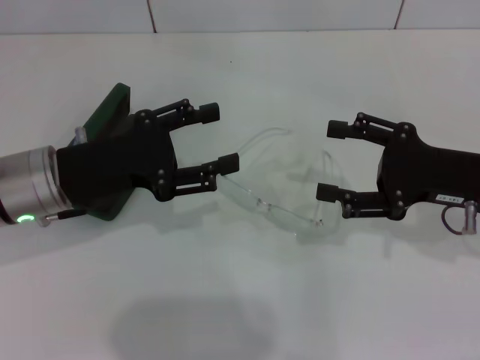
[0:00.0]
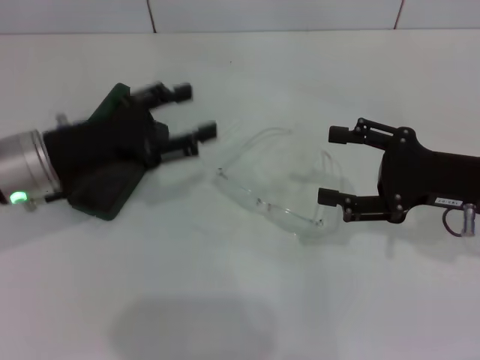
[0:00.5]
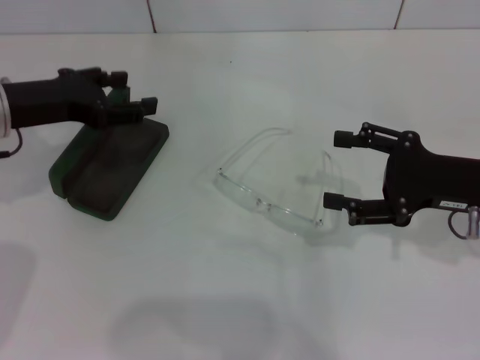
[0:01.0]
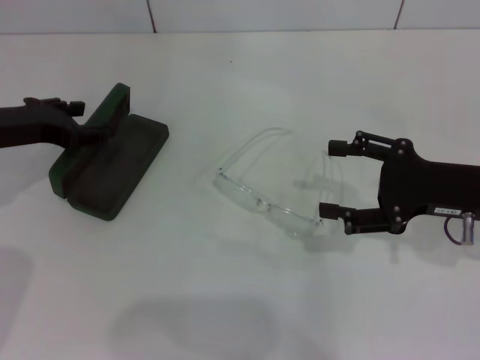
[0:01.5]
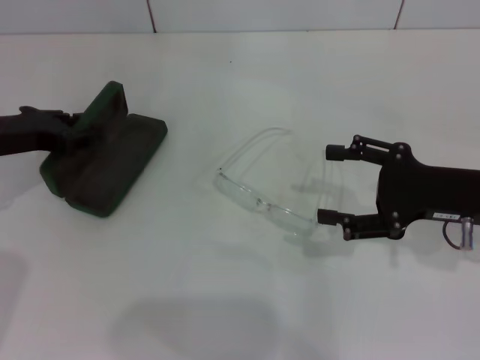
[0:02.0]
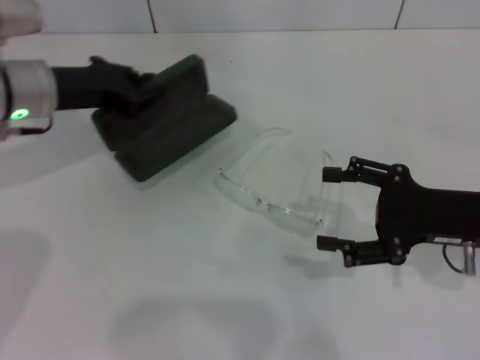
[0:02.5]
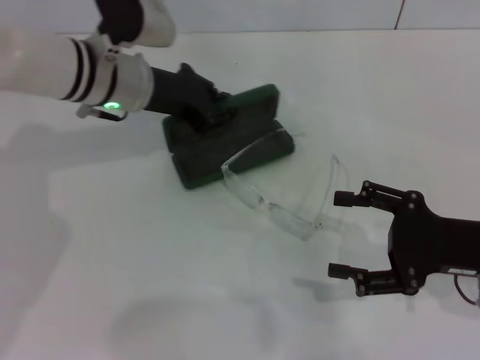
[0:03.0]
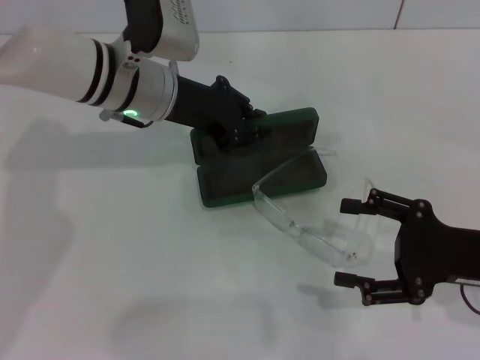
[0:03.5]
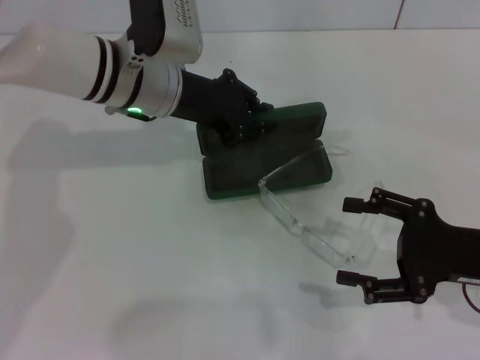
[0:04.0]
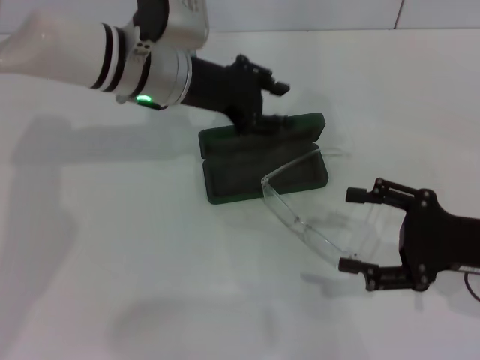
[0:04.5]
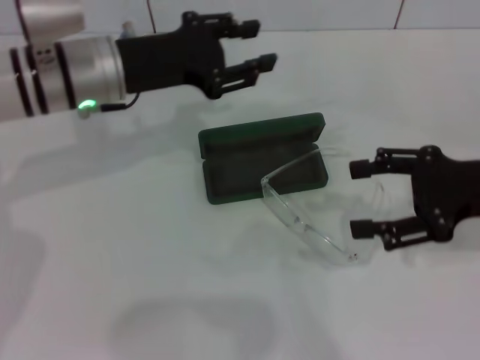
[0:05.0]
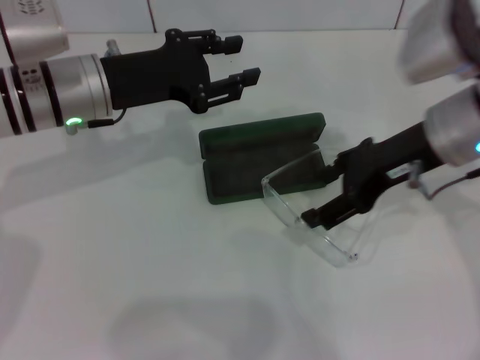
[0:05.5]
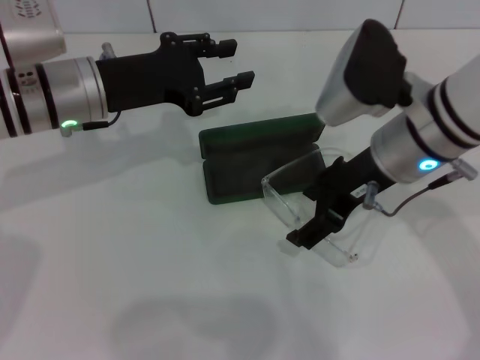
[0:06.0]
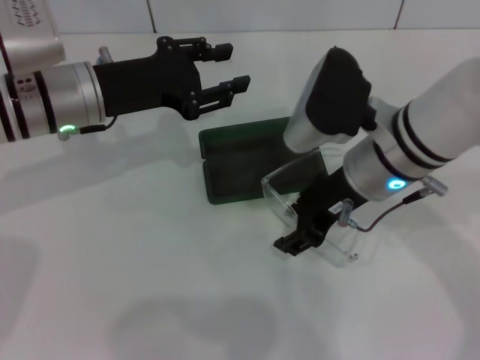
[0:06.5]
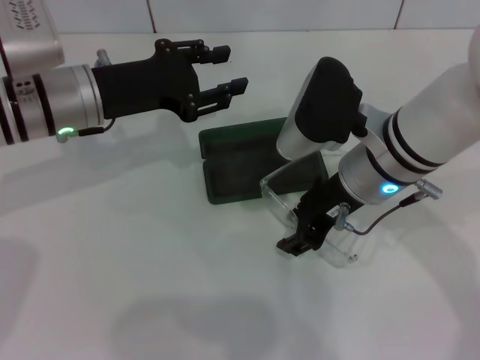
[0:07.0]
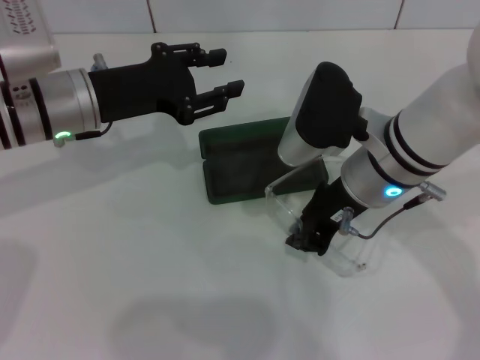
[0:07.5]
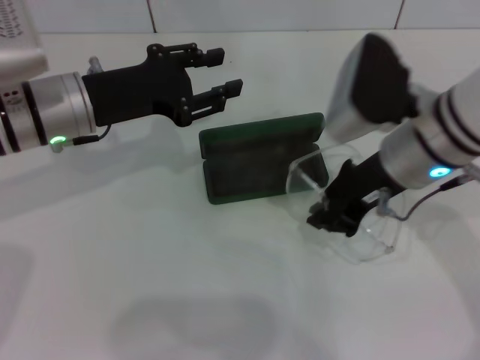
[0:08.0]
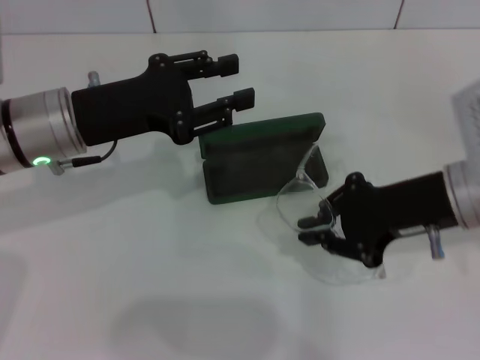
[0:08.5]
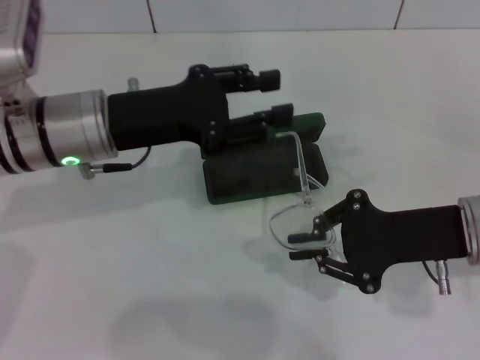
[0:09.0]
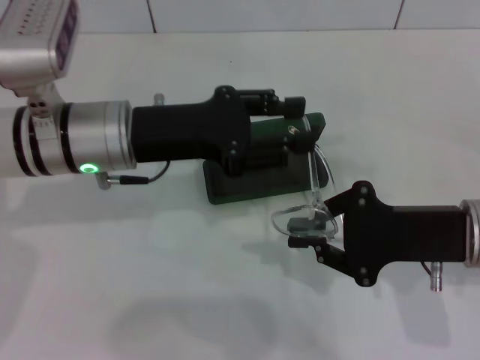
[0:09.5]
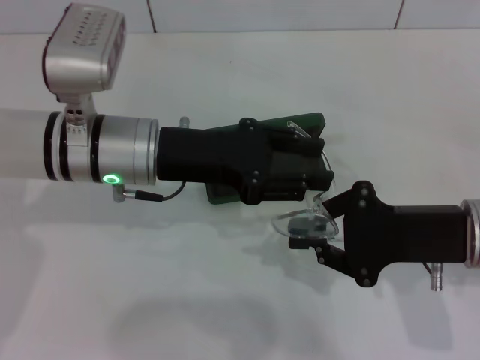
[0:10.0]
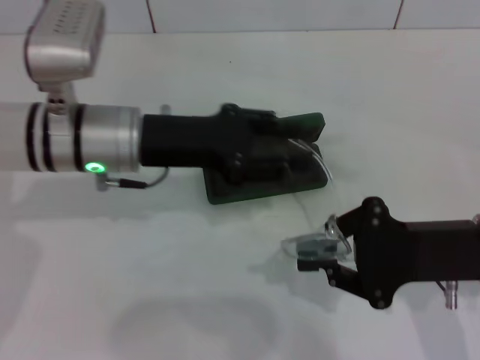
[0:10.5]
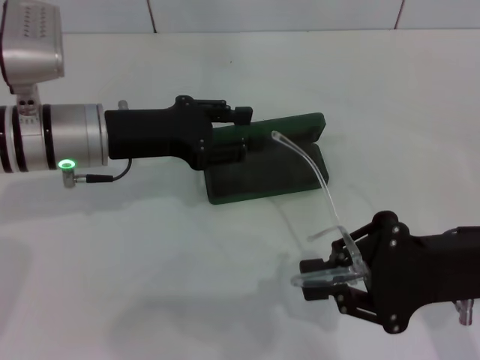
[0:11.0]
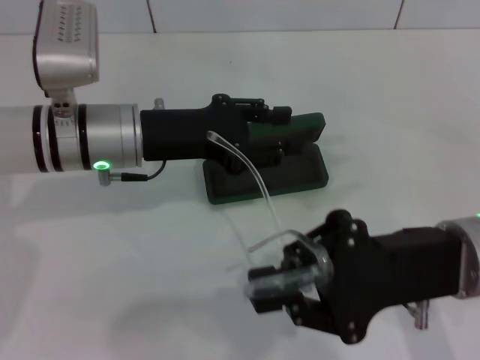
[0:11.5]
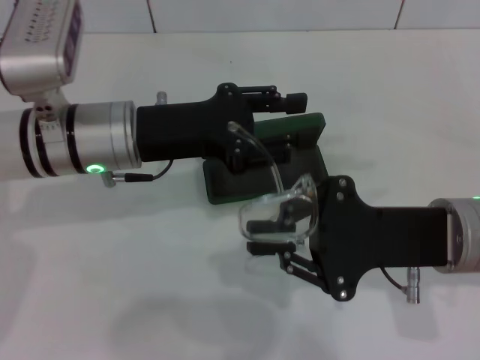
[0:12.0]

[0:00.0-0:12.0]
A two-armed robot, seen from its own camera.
Step, 0:00.0 to 0:02.0: Grab the glasses case with your left hand.
Step, 0:02.5 to 0:04.0: Place the glasses case in the center of the table with your left hand.
Step, 0:04.5 to 0:07.0: Grab the eyeglass frame with your right hand.
0:00.0 to 0:02.0: The left gripper moves to the left, about 10 cm, and closes up.
0:02.0 to 0:04.0: The left gripper travels to the right by some 20 cm, while the right gripper heads backward, covering about 5 cm.
0:04.0 to 0:06.0: The right gripper travels to the left, forward and upward by roughly 20 cm. The left gripper travels to the left by roughly 5 cm, and opens.
0:06.0 to 0:08.0: The right gripper closes.
0:08.0 to 0:10.0: The left gripper travels to the right by some 5 cm. Meanwhile the right gripper travels to the right, backward and downward by some 10 cm.

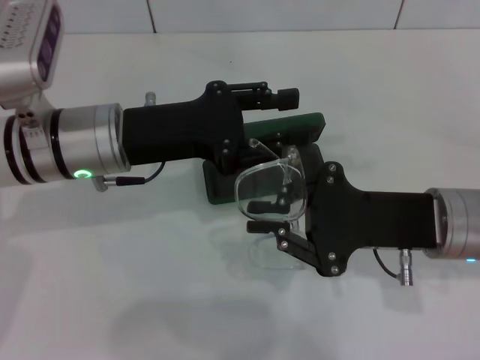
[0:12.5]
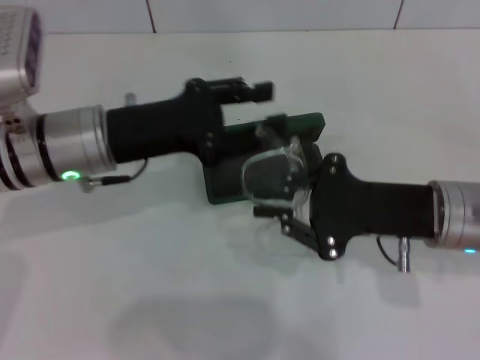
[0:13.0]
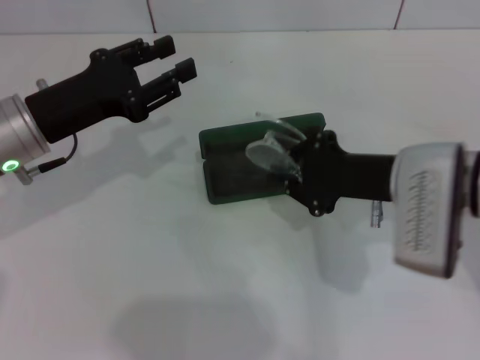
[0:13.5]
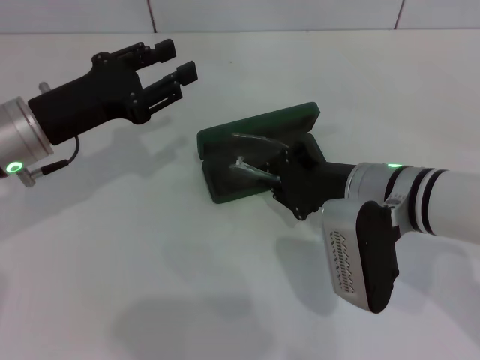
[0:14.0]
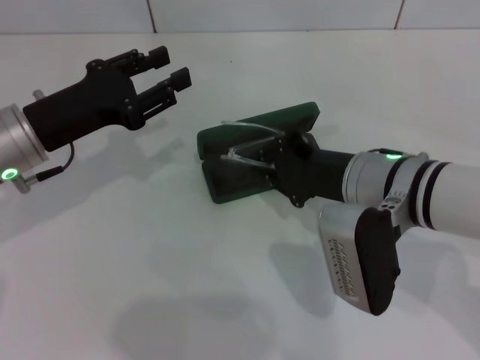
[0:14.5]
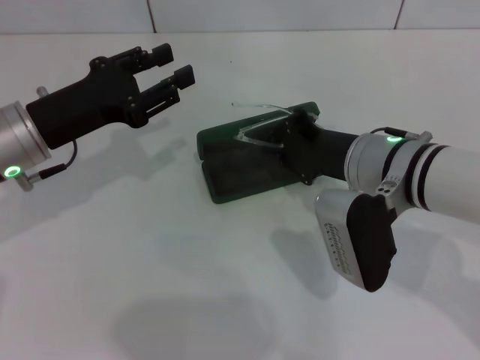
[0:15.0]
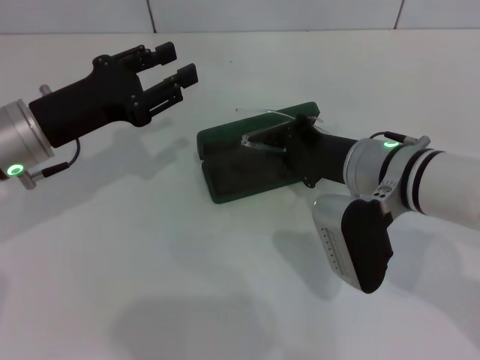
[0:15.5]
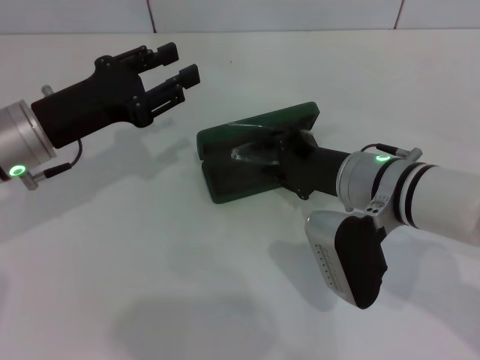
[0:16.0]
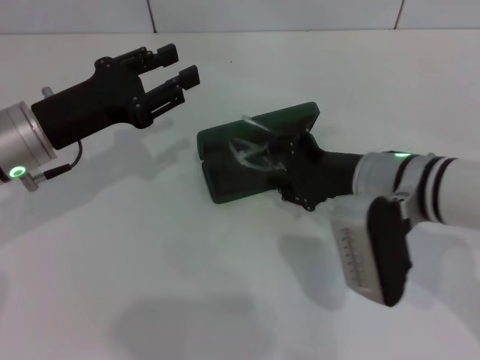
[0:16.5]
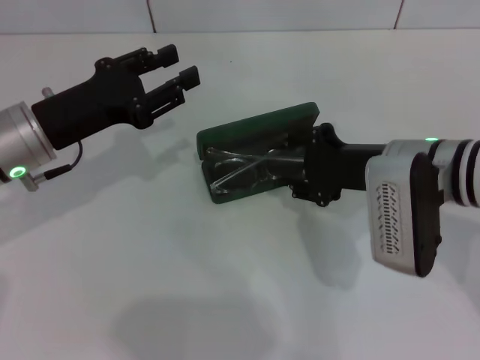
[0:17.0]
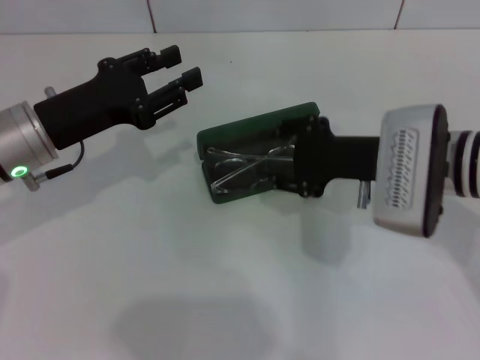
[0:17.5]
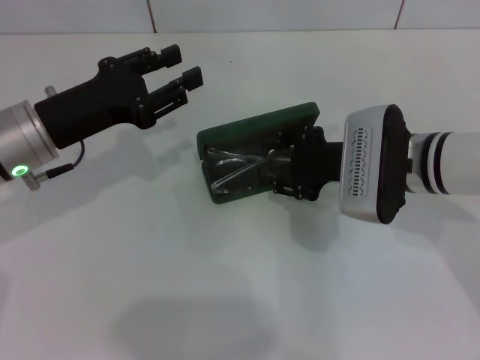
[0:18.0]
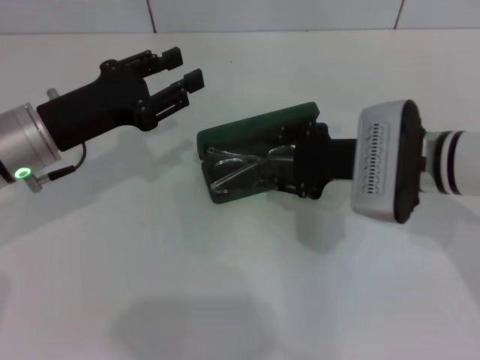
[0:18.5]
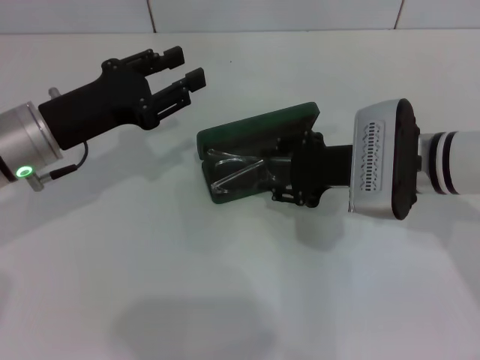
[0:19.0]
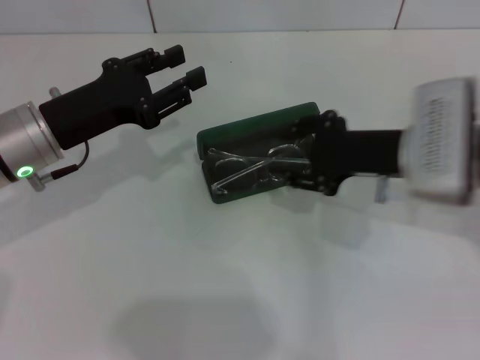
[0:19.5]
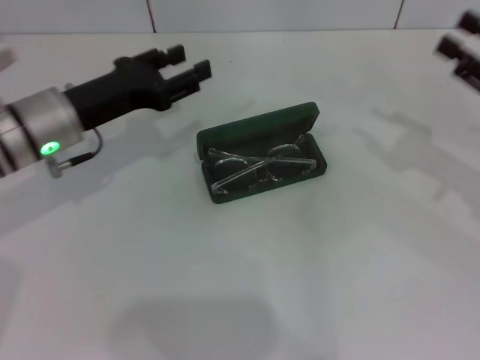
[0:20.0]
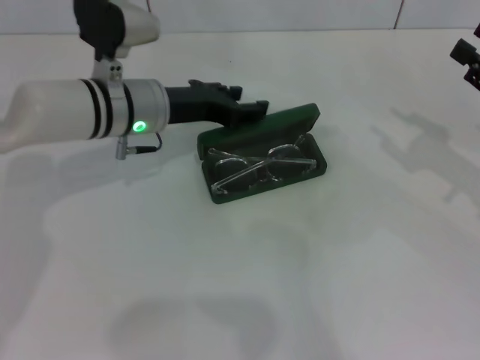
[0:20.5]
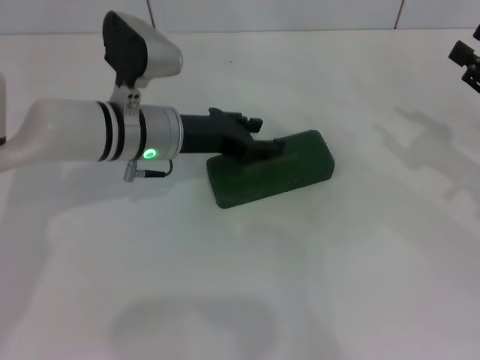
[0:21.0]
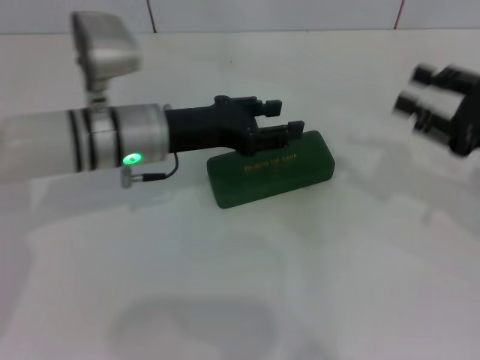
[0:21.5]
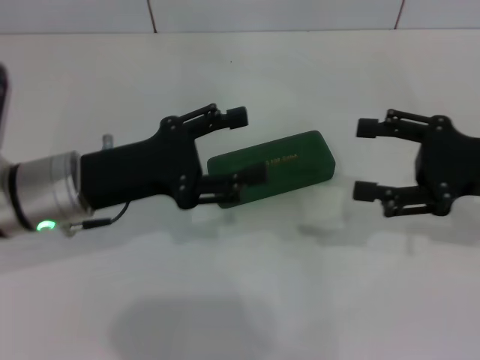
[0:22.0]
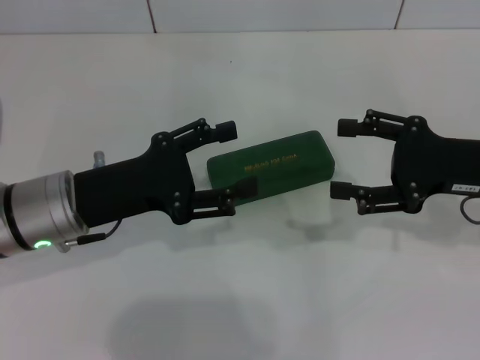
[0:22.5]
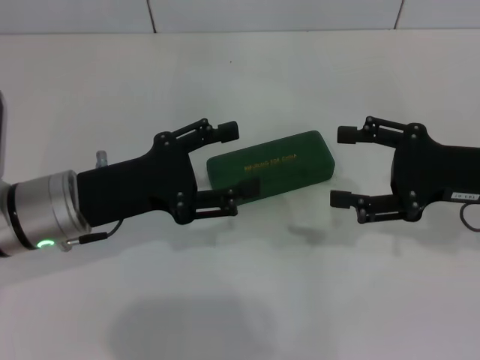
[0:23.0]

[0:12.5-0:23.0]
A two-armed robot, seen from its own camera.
Step, 0:13.0 to 0:16.5: Put the glasses into the case with your right hand.
Step, 0:17.5 to 0:20.5: Close the glasses case with your left hand.
0:12.5 to 0:14.5: Both grippers travel together to the left, some 5 cm.
0:14.5 to 0:16.5: The right gripper opens up.
0:19.0 to 0:21.0: The left gripper is displaced to the right and forward by about 10 cm. Meanwhile the right gripper is displaced to the right by roughly 20 cm.
0:21.0 to 0:23.0: The left gripper travels backward and to the left by approximately 15 cm, and opens up; the right gripper goes approximately 5 cm to the left, and opens its fingers.
